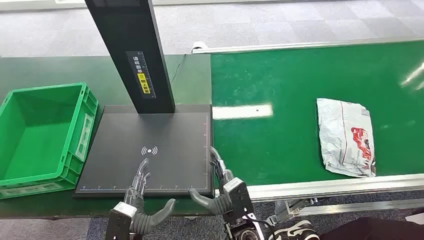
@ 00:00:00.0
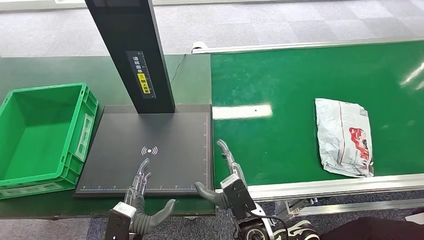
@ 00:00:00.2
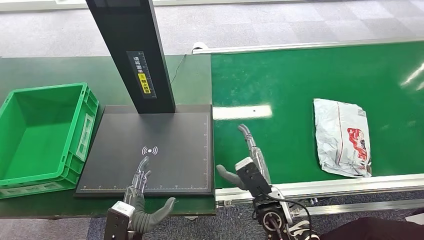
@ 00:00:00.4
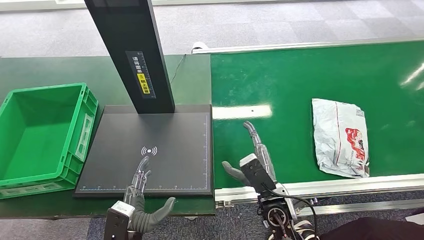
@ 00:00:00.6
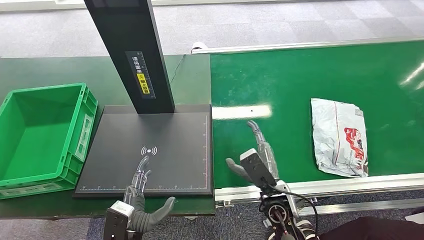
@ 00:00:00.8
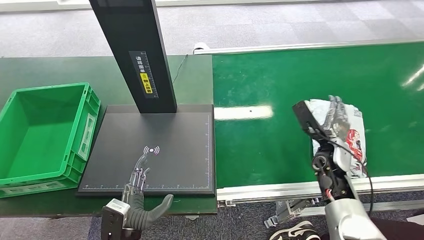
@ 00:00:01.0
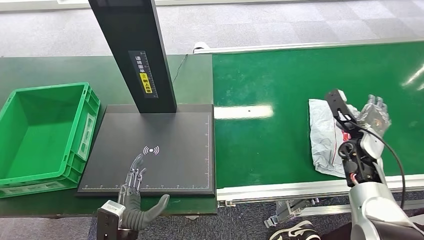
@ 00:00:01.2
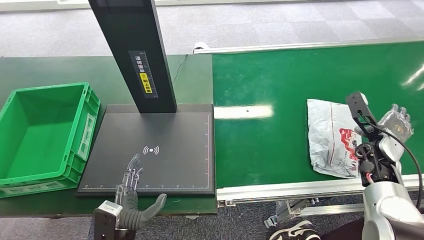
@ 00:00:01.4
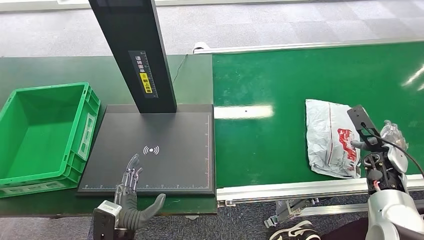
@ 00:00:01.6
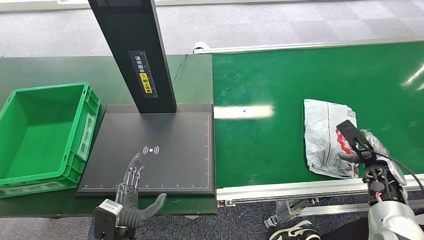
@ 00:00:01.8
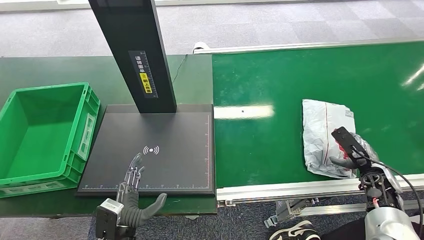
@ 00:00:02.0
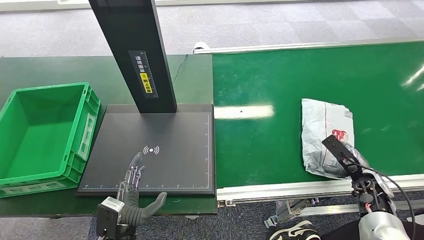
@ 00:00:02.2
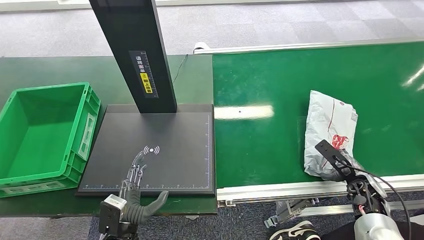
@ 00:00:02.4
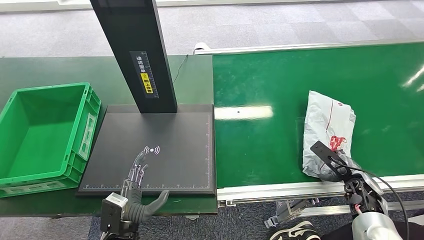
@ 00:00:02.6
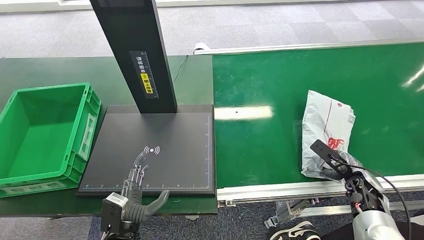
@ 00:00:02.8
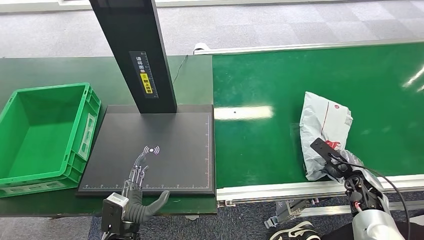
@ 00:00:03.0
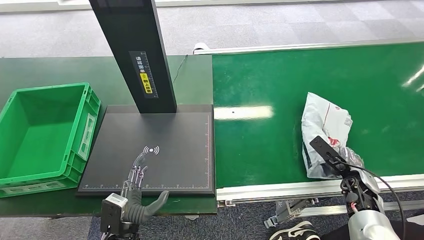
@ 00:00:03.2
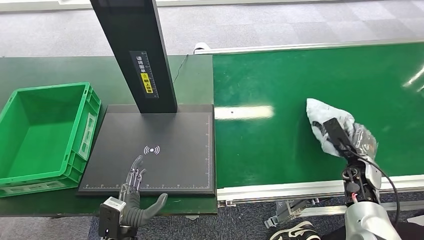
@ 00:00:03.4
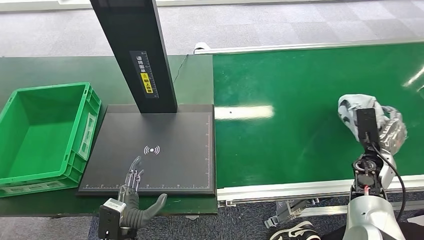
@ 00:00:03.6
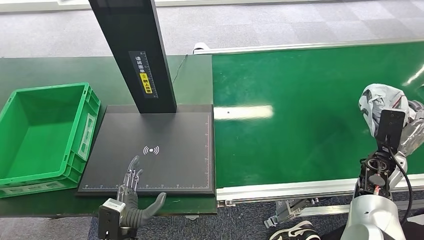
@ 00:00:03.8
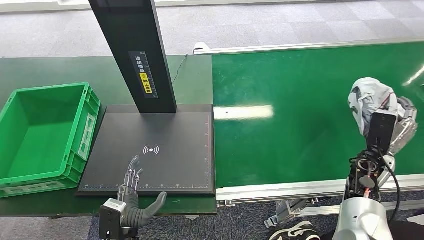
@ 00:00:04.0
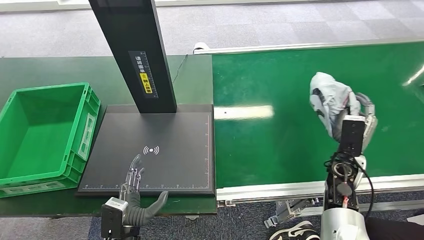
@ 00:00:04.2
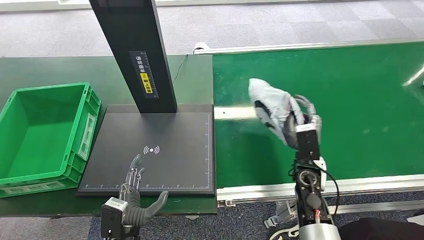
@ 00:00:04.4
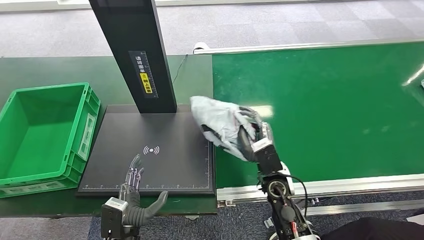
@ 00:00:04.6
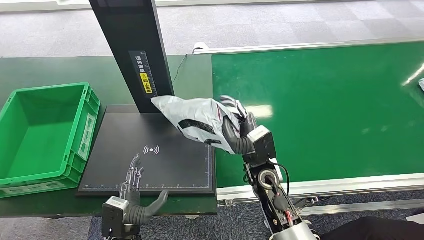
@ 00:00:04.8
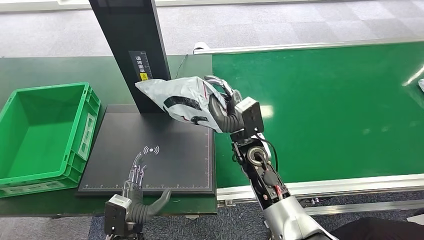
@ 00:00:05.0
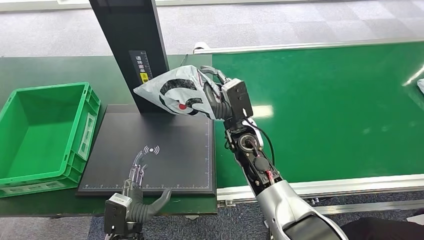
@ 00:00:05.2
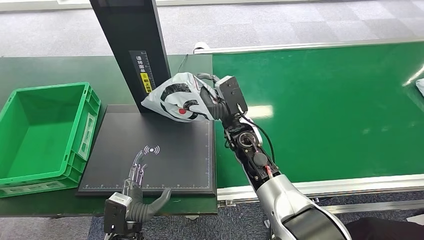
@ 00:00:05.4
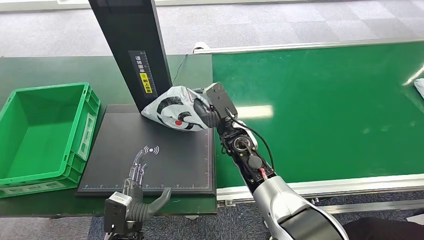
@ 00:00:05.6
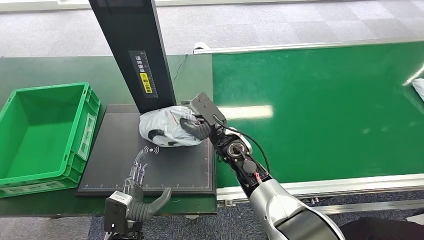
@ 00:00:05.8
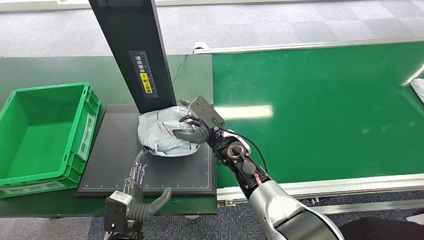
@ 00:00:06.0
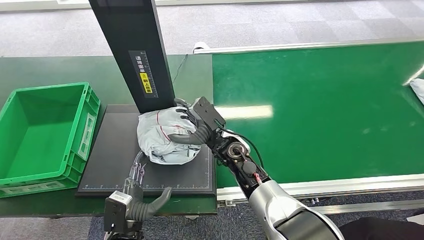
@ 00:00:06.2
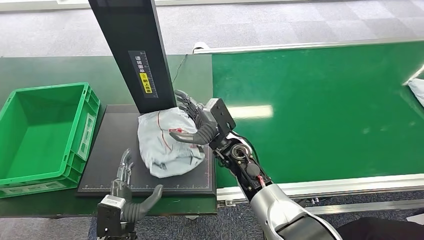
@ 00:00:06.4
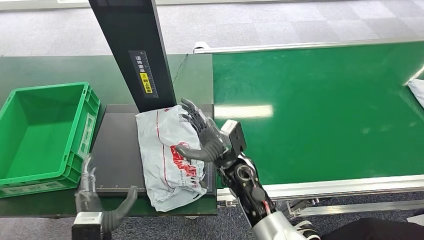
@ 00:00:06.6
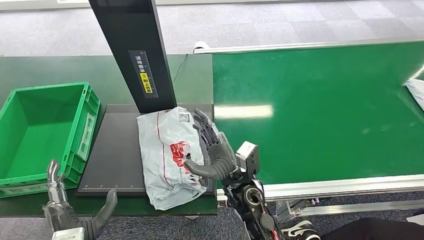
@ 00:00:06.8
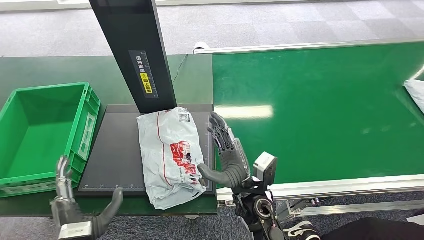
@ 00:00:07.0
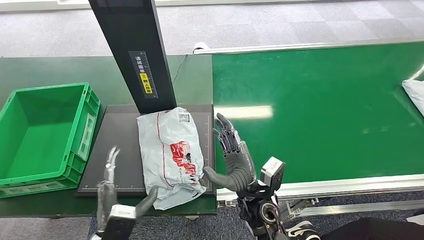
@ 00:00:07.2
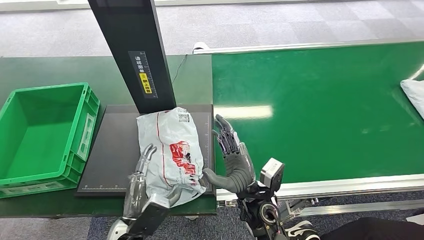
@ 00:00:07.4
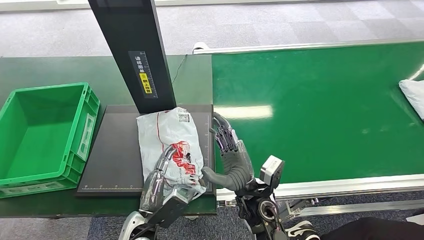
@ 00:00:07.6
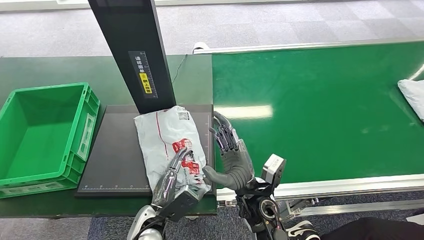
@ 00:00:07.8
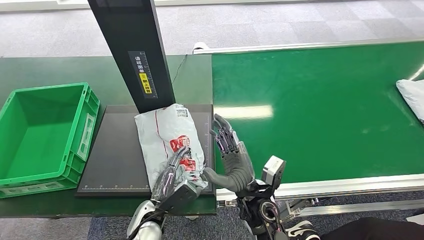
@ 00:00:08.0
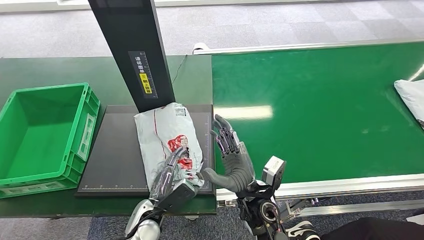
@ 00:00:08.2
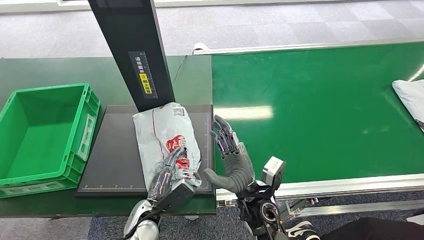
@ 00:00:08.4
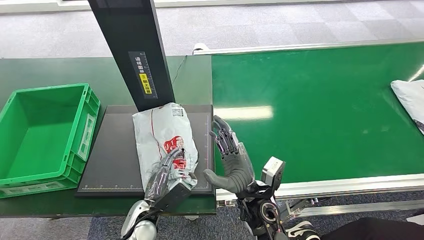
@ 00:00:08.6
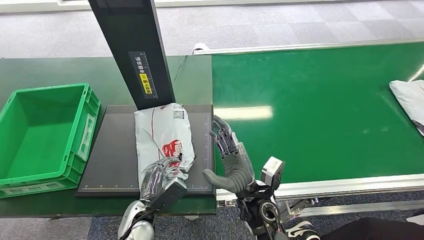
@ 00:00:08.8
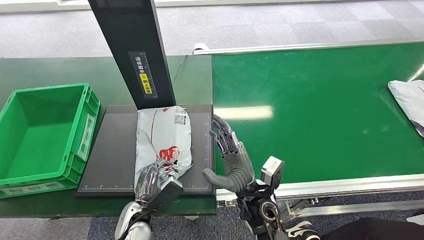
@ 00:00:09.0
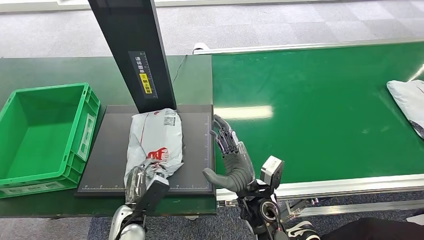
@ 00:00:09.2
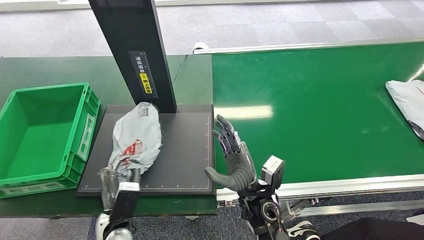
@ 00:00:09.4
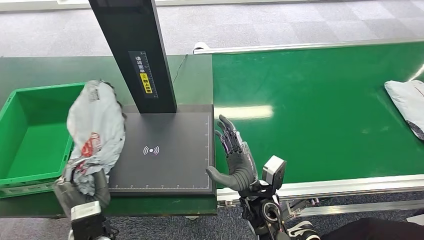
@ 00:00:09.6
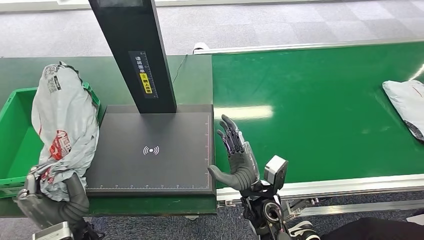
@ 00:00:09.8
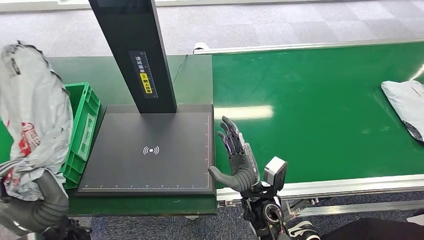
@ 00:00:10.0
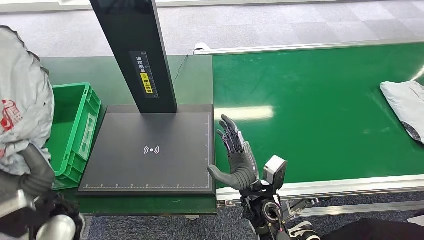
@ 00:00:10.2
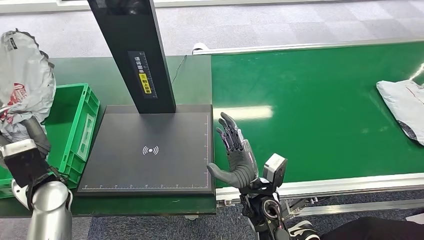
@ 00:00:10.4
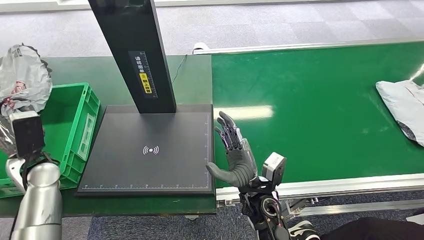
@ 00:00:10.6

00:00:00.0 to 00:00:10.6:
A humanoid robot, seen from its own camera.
Step, 00:00:00.0 to 00:00:03.8: Pick up the package from the conveyor belt.
Step, 00:00:04.2 to 00:00:07.0: Place the package onto the inbound machine.
Step, 00:00:07.4 to 00:00:09.8: Pick up the package from the inbound machine.
00:00:01.6 to 00:00:03.0: The right hand shifts roughly 5 cm downward.
00:00:03.0 to 00:00:04.6: The right hand travels to the left by roughly 25 cm.
00:00:04.6 to 00:00:06.0: The right hand shifts about 10 cm to the left and forward.
00:00:06.0 to 00:00:07.6: The right hand travels backward by roughly 10 cm.
00:00:07.6 to 00:00:09.0: The left hand shifts by approximately 5 cm.
00:00:09.0 to 00:00:10.6: The left hand heads to the left, upward and forward, covering roughly 30 cm.

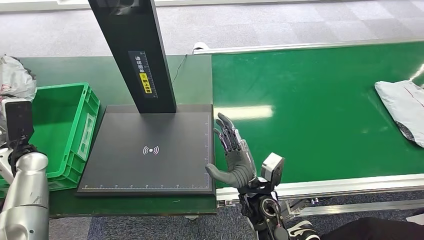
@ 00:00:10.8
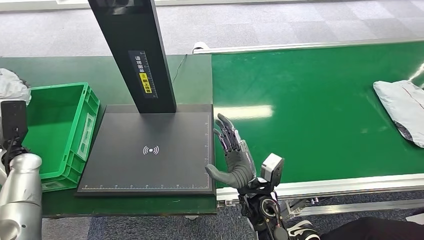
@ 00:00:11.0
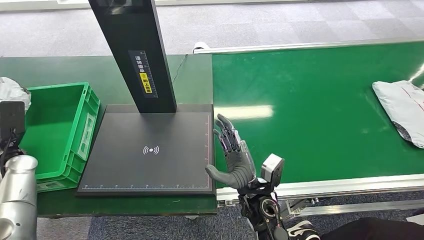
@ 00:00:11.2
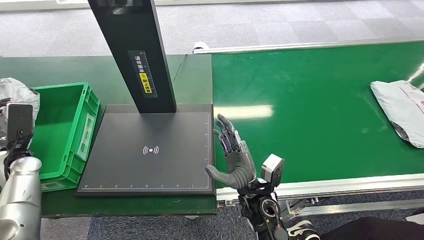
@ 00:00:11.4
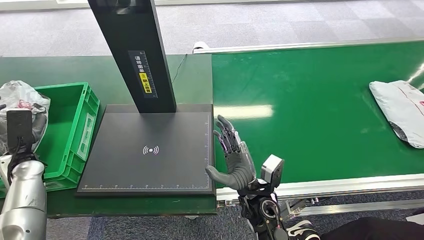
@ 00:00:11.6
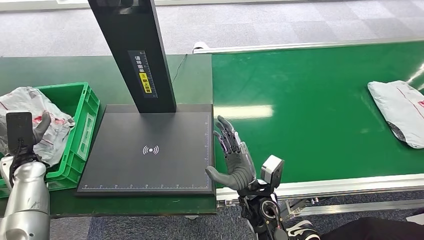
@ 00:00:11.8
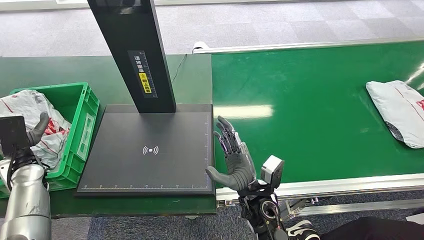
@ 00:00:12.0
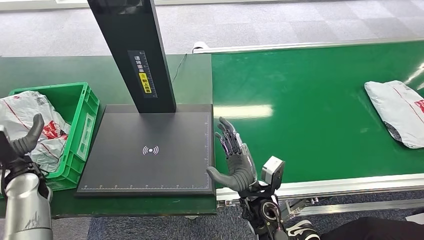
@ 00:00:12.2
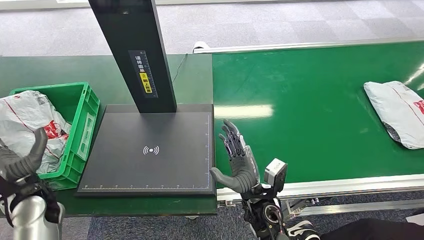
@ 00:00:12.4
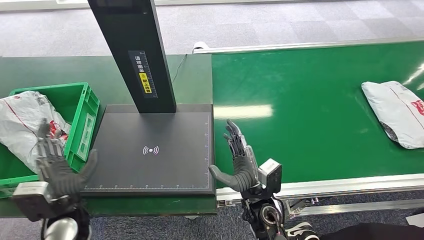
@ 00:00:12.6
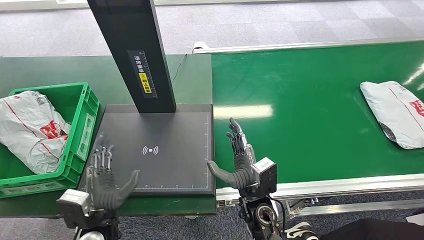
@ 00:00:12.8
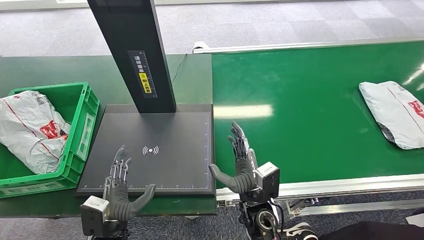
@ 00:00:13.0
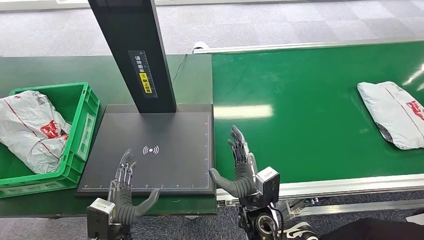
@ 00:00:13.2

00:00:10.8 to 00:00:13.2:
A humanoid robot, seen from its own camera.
Step, 00:00:10.8 to 00:00:13.2: Place the package into the parcel locker.
00:00:10.8 to 00:00:12.0: The hands move only a little.
00:00:12.0 to 00:00:13.2: The left hand heads to the right and backward, covering approximately 30 cm.
